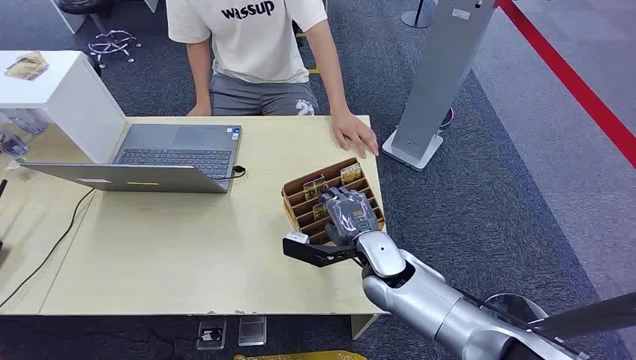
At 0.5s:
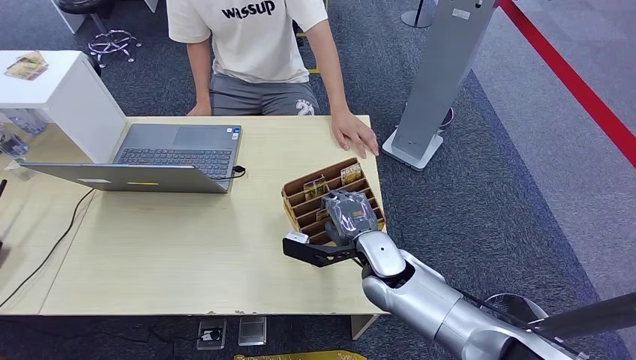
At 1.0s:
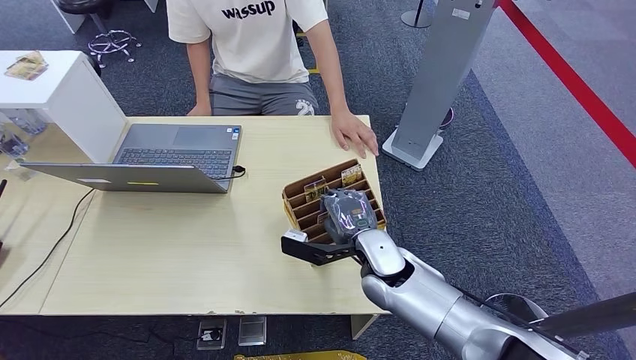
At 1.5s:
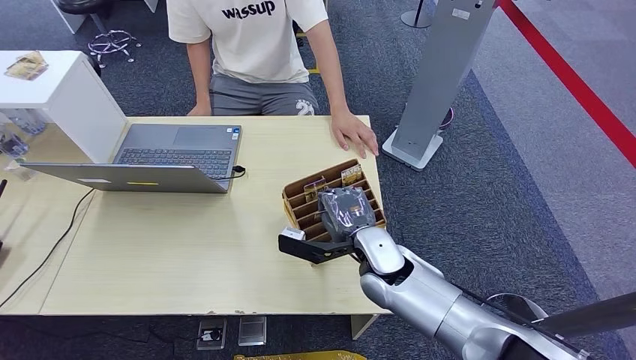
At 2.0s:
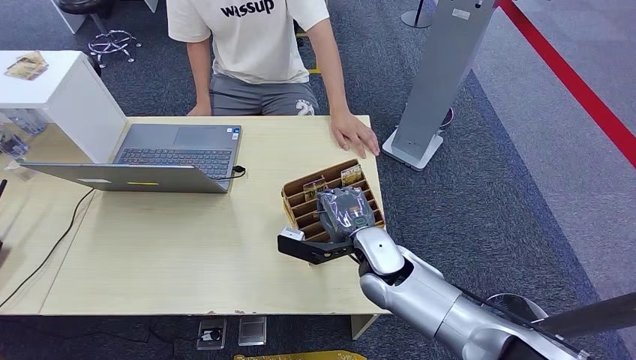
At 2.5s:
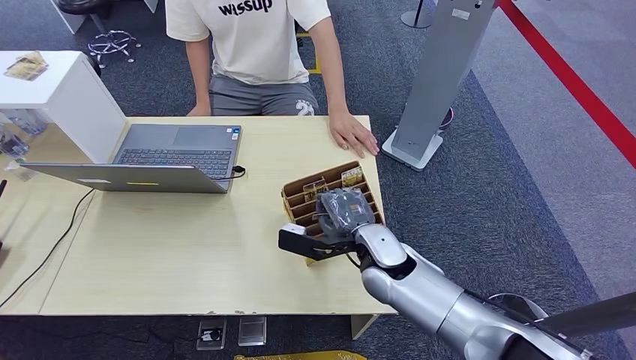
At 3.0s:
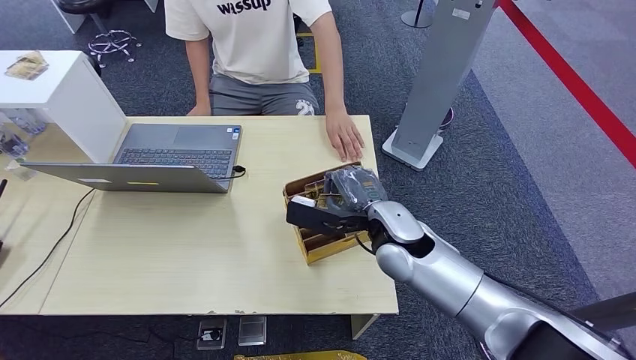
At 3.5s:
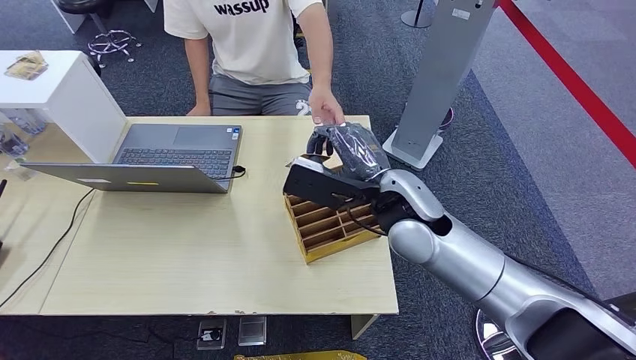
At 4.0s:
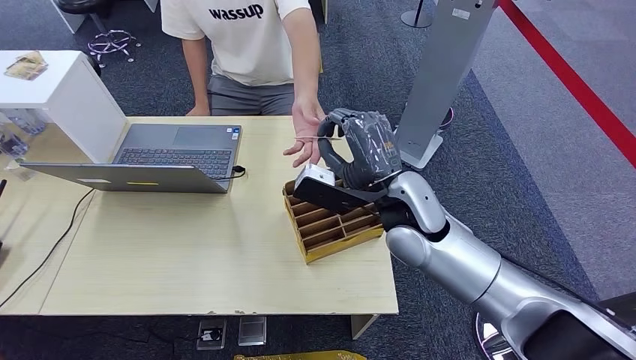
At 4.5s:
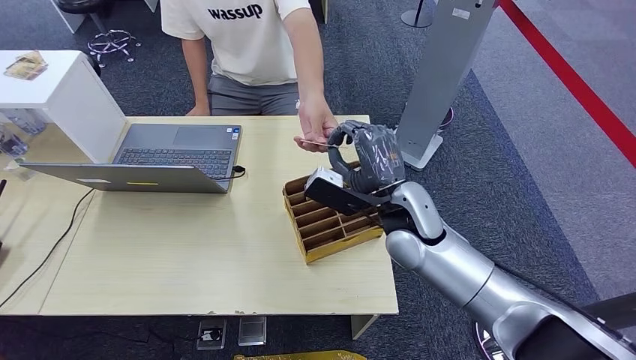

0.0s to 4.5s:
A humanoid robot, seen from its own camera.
Step, 0.0s to 3.0s: Pick up the room card from the card holder.
Step, 4.0s to 4.5s: Hand the room card to the target.
2.0s to 4.5s: The right hand goes approximately 10 cm upward.
